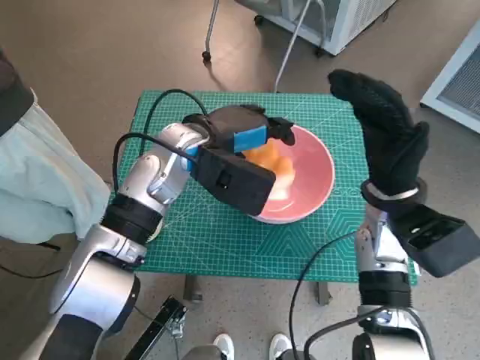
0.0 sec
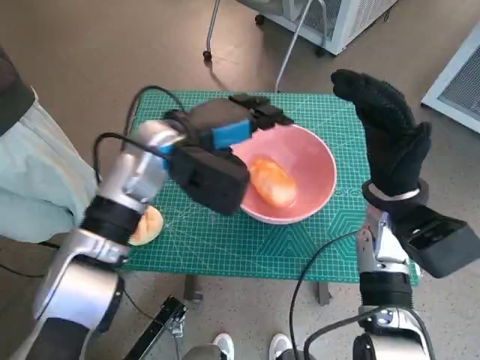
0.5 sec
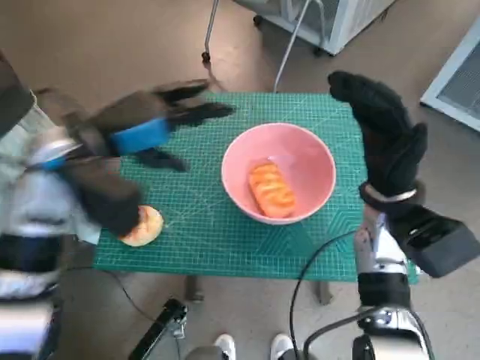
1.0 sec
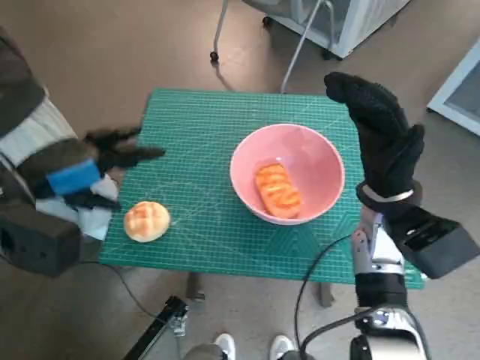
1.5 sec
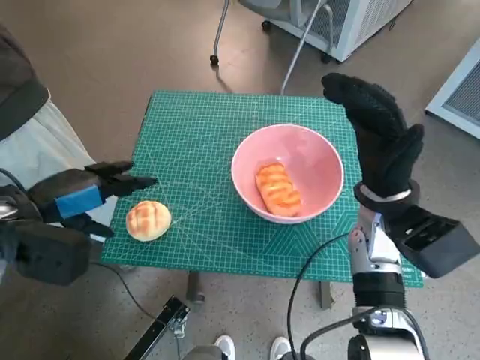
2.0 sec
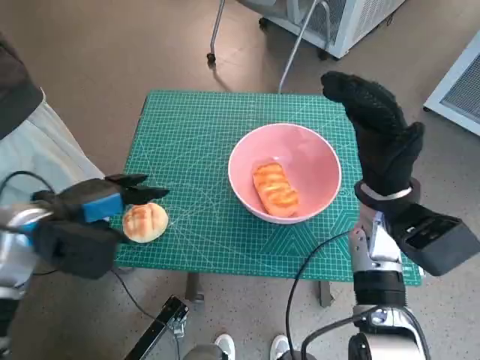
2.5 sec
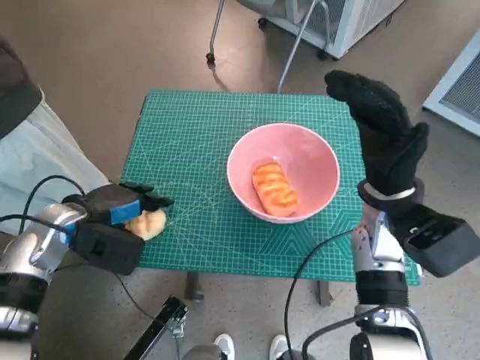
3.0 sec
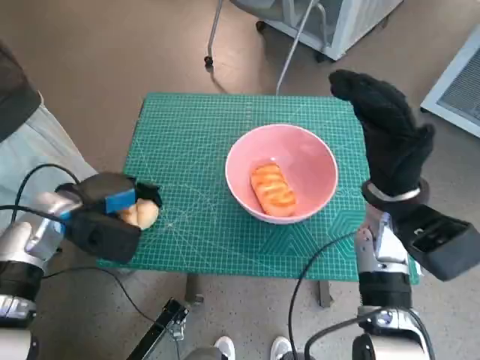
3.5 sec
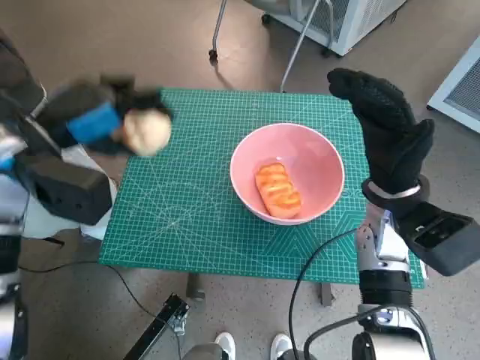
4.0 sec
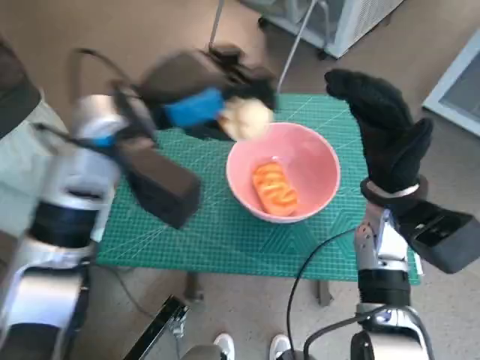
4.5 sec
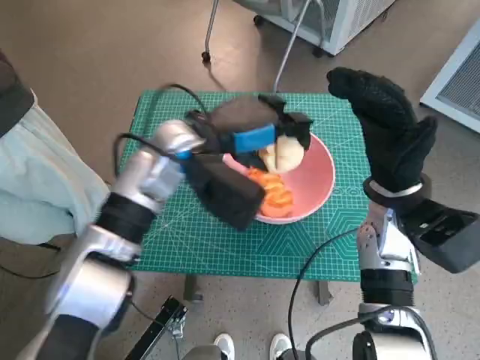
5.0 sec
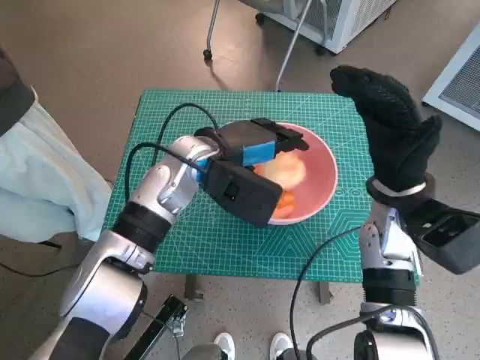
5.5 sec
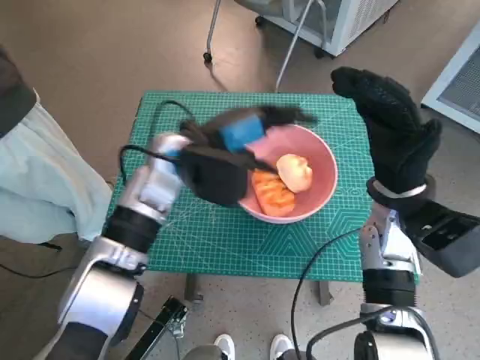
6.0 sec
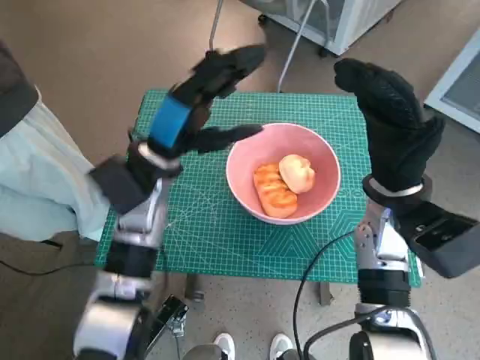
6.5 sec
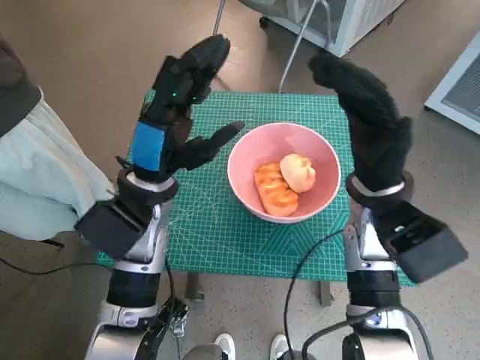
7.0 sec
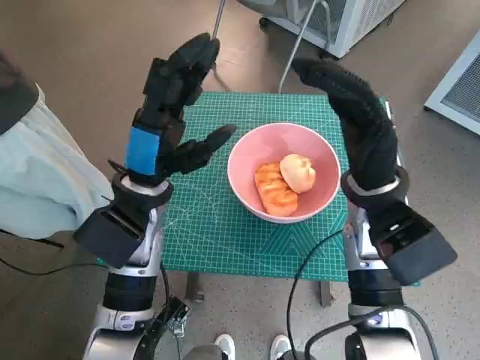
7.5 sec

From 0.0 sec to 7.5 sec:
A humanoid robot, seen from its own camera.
Task of the whole recording: Push the bowl to the center of the table and put the bread into the bowl.
Step, from 0.5 sec to 3.0 sec: Grasp the round bread with left hand.
Step, from 3.5 sec to 5.5 sec: Place the round bread in pink bowl with left hand.
From 0.0 sec to 2.0 sec: The left hand is displaced to the left and backward by approximately 20 cm.
From 2.0 sec to 4.0 sec: The left hand heads forward, covering roughly 5 cm, and moves approximately 10 cm downward and comes back.
From 4.0 sec to 5.5 sec: The left hand goes about 15 cm to the right.
From 5.5 sec to 7.5 sec: The left hand moves to the left and backward, roughly 10 cm.

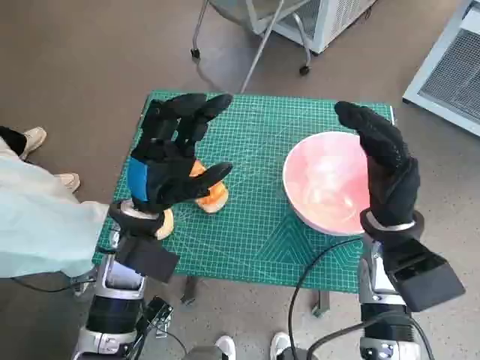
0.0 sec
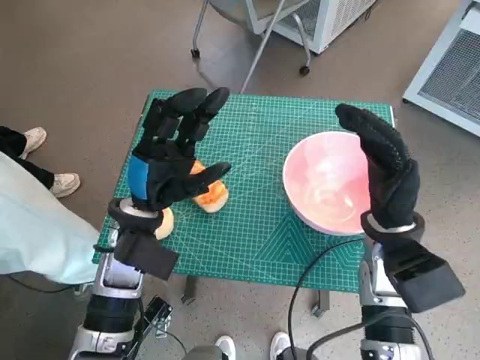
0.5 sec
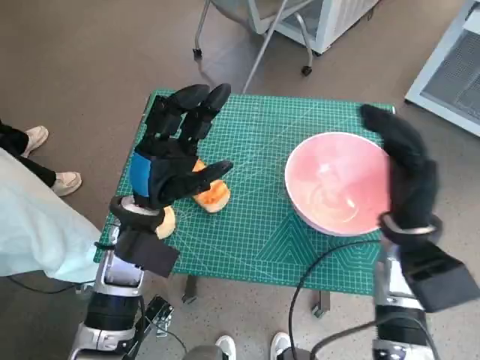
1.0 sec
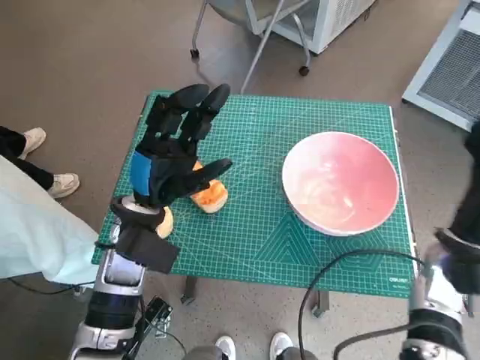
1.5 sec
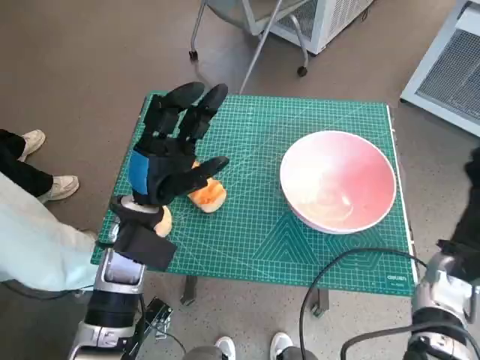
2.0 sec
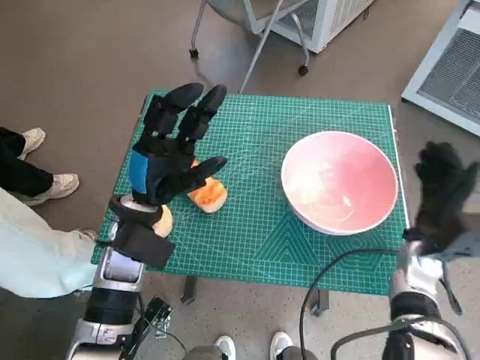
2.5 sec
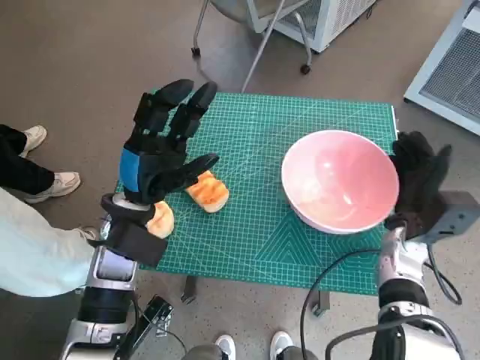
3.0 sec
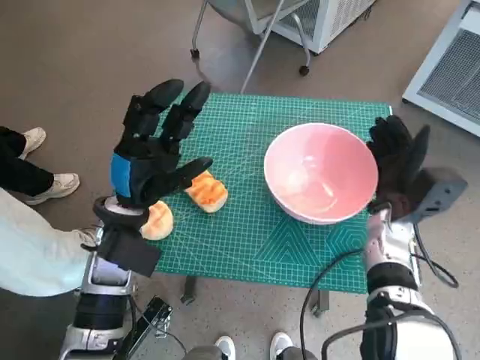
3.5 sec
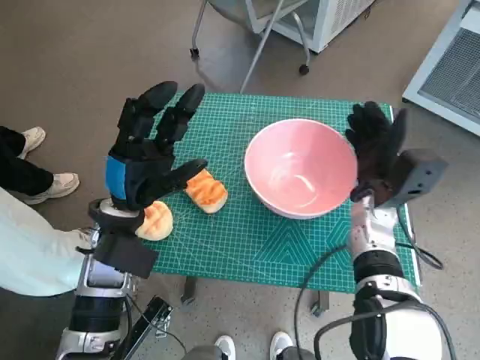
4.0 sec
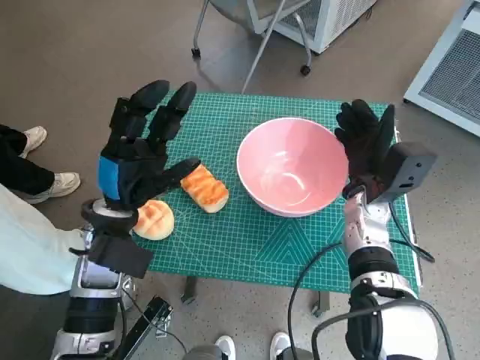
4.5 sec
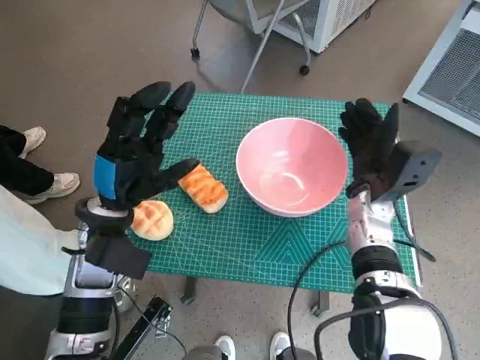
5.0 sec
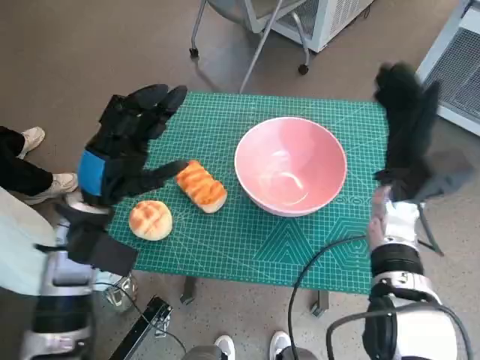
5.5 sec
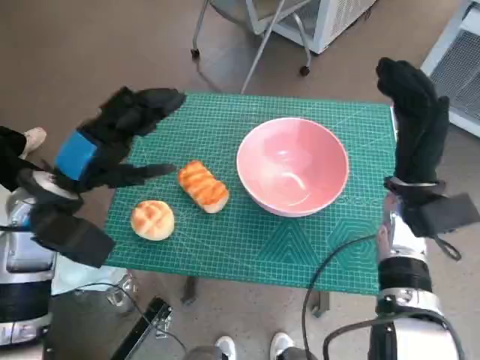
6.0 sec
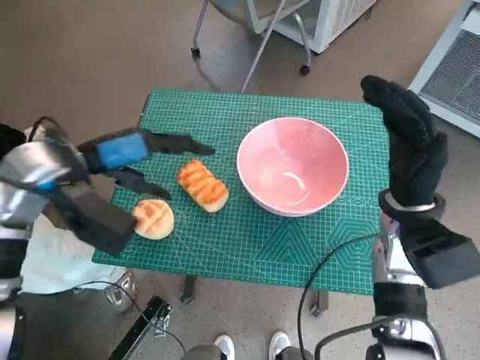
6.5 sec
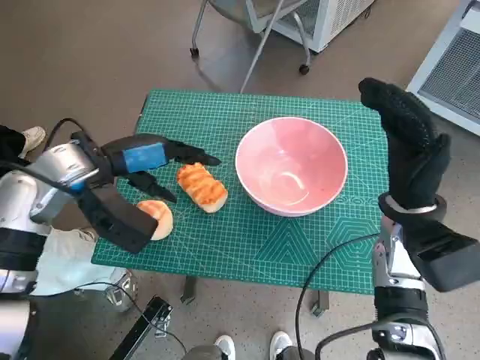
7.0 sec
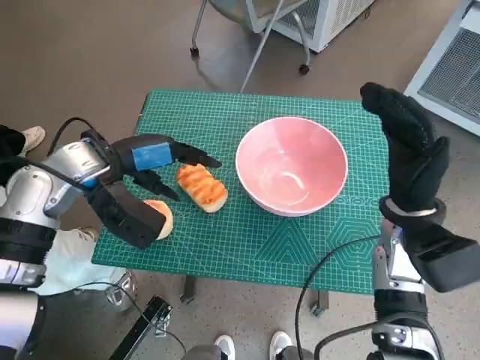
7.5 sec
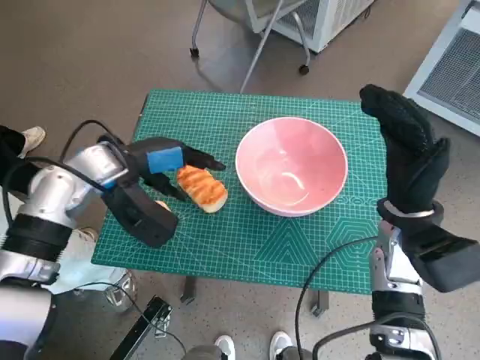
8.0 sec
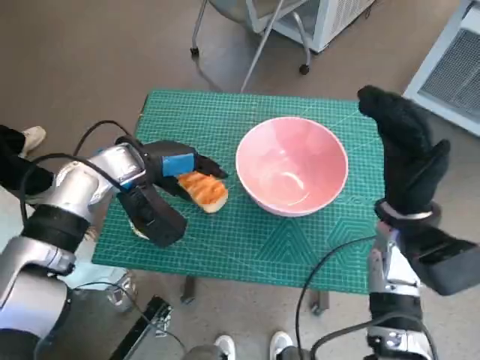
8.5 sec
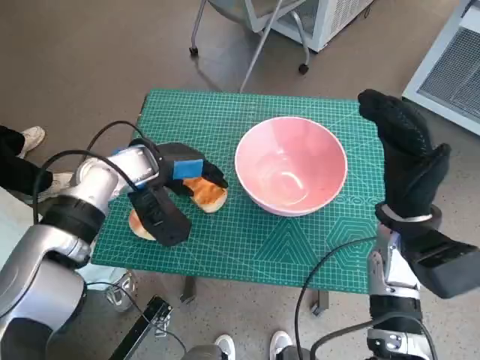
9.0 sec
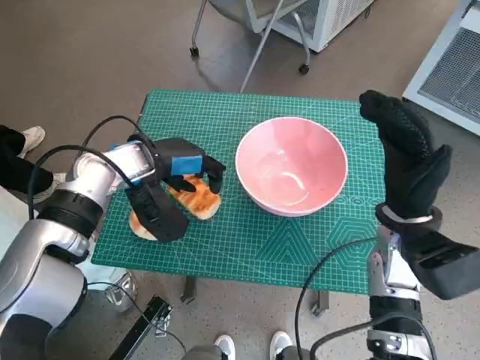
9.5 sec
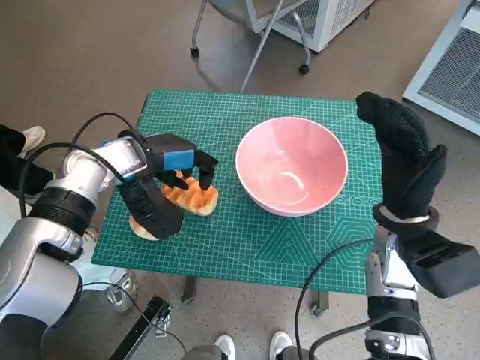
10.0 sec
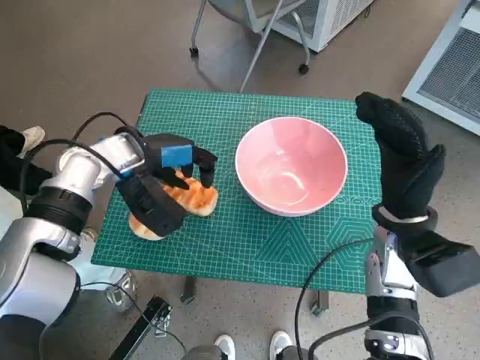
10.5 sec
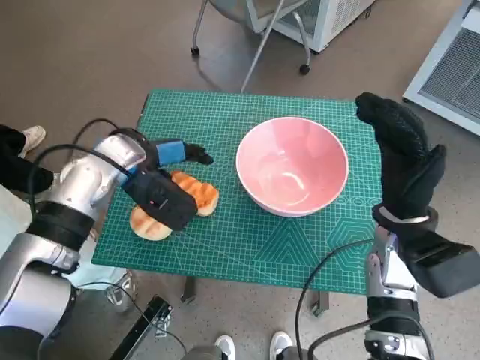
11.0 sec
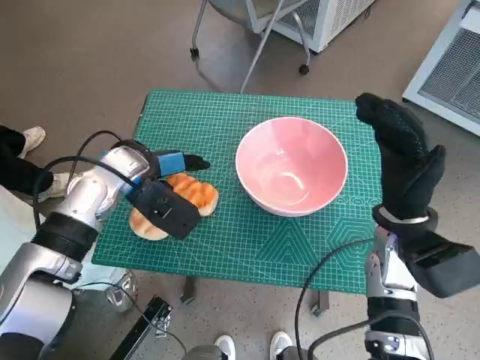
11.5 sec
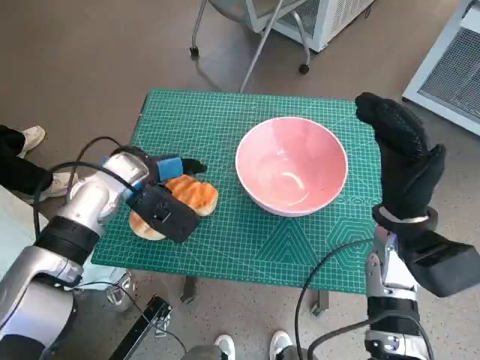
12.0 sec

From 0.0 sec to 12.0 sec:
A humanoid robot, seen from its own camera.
Task of the whole recording: Push the bowl to the center of the table and put the bread into the bowl.
Step, from 0.0 sec to 5.0 sec: Move the pink bowl to the center of table with right hand.
From 2.0 sec to 4.0 sec: The right hand moves to the left and forward, some 15 cm.
From 4.0 sec to 6.0 sec: The left hand goes about 10 cm to the left and upward. Meanwhile the right hand travels upward by some 5 cm.
From 6.0 sec to 8.0 sec: The left hand is displaced forward by approximately 5 cm.
From 8.0 sec to 10.0 sec: The hands move only a little.

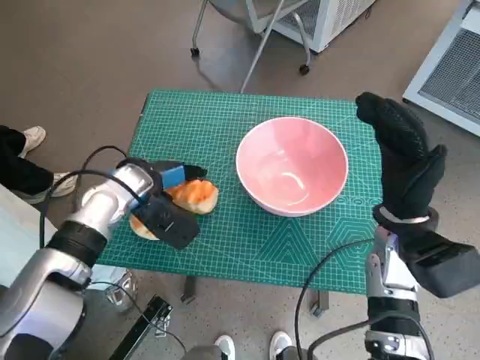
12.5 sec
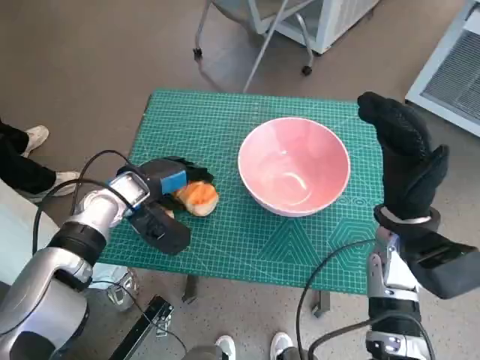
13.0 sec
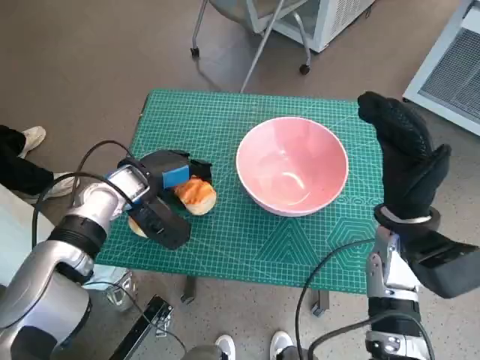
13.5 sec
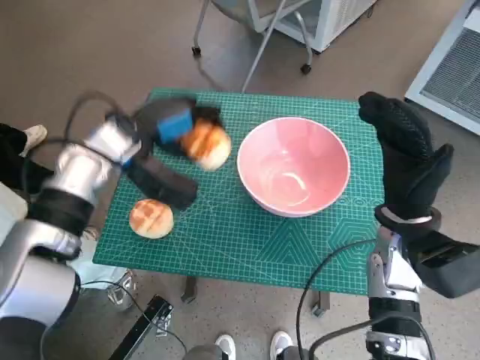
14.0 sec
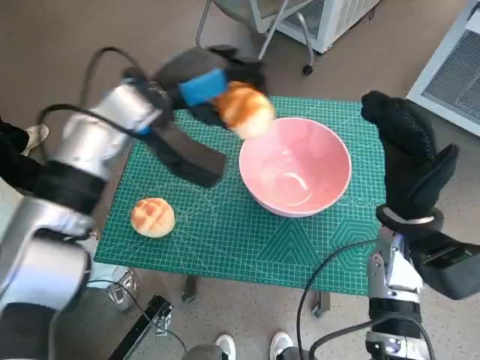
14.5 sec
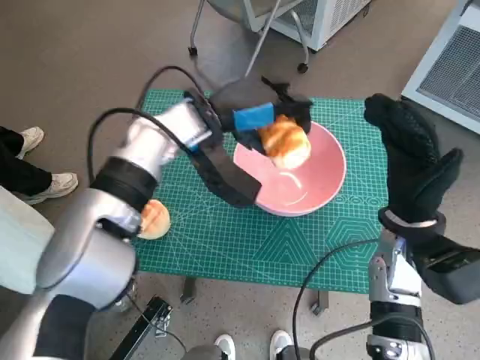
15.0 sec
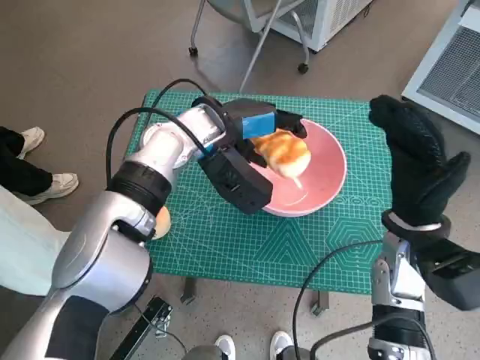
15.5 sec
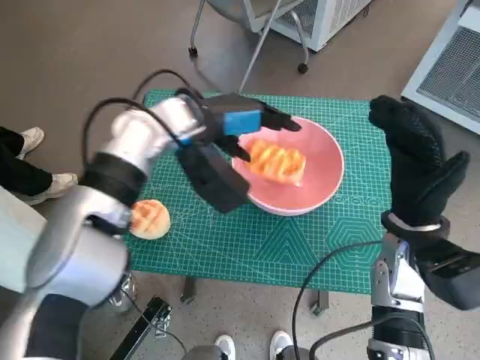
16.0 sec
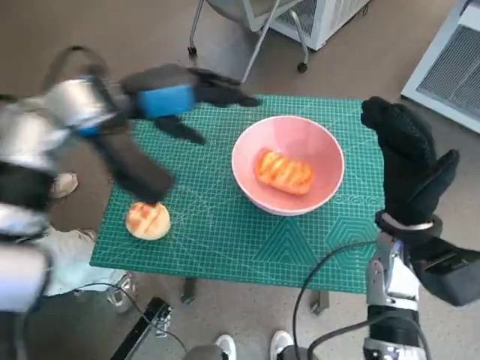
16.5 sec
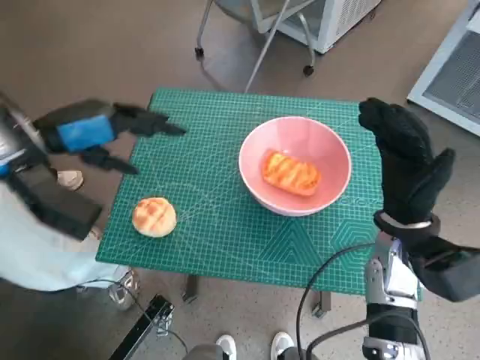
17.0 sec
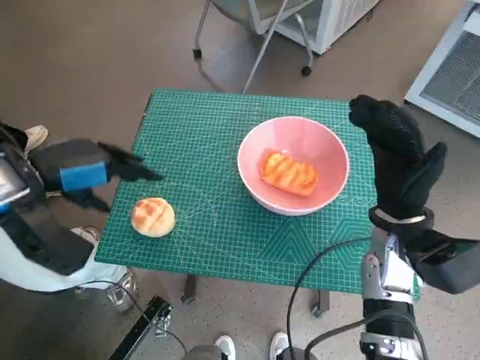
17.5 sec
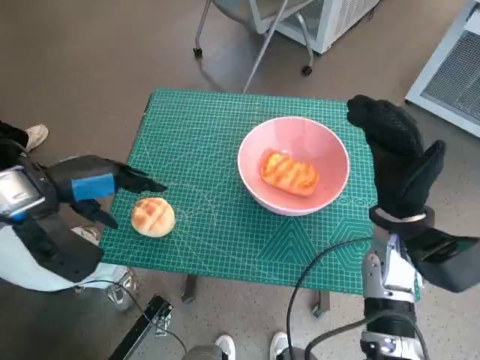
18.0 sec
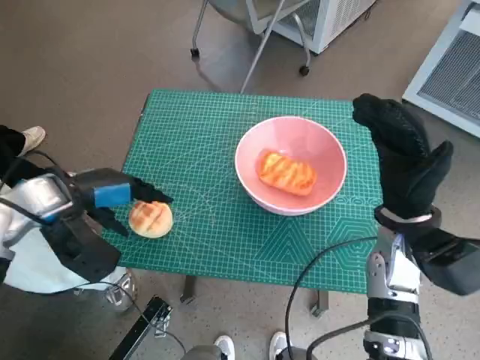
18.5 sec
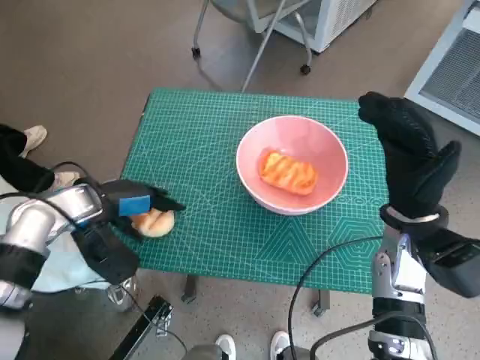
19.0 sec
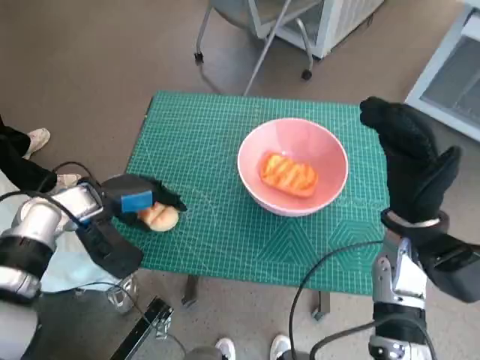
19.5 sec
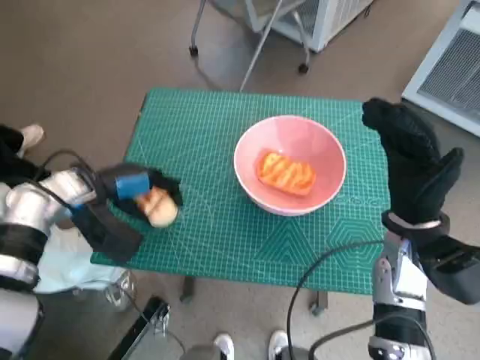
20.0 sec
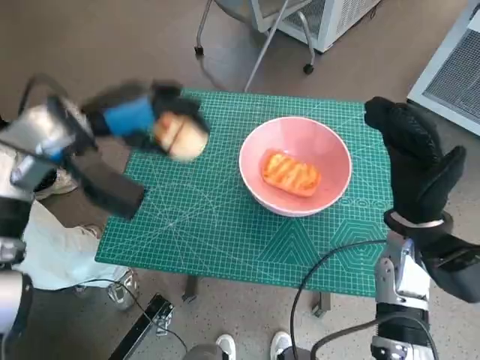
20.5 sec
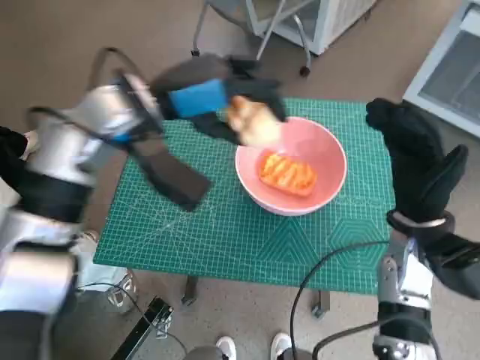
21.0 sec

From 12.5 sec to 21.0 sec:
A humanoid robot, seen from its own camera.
Task of the whole recording: Push the bowl to the center of the table and put the bread into the bowl.
Step, from 13.0 sec to 16.0 sec: Place the long bread in pink bowl with left hand.
Step, from 16.5 sec to 19.0 sec: Grasp the round bread with left hand.
From 12.5 sec to 14.5 sec: The left hand moves upward, about 10 cm.
From 14.5 sec to 16.5 sec: The left hand moves roughly 5 cm to the right and comes back.
From 16.5 sec to 19.0 sec: The left hand travels downward, to the left and backward by roughly 15 cm.
From 19.0 sec to 21.0 sec: The left hand travels upward and to the right by roughly 15 cm.
